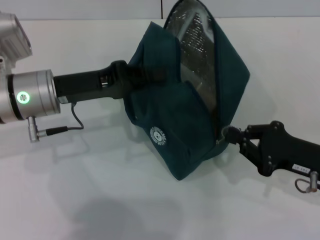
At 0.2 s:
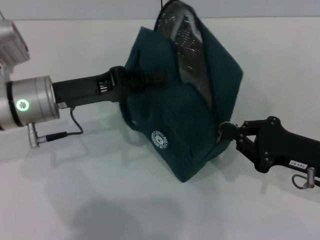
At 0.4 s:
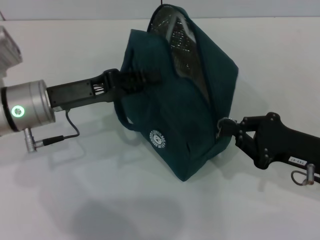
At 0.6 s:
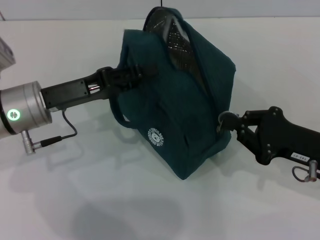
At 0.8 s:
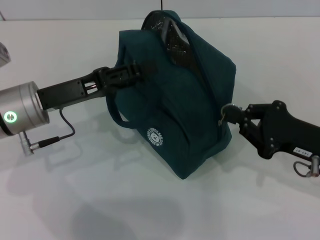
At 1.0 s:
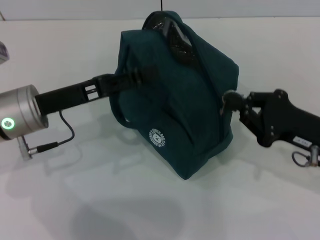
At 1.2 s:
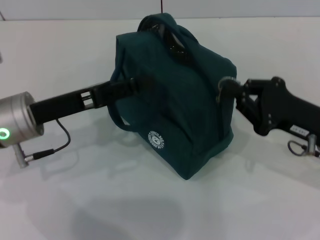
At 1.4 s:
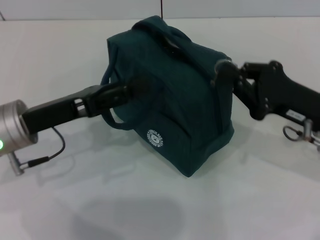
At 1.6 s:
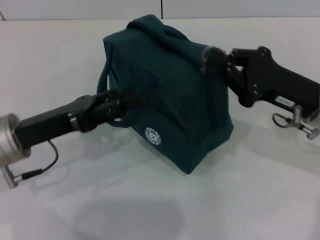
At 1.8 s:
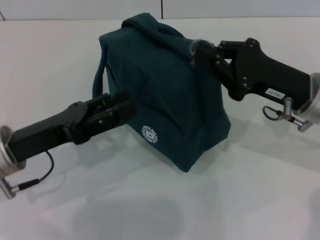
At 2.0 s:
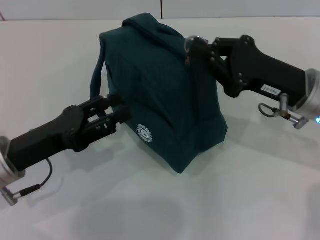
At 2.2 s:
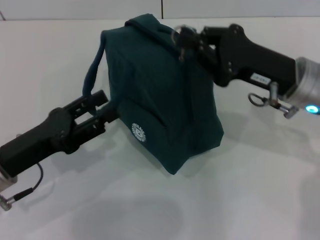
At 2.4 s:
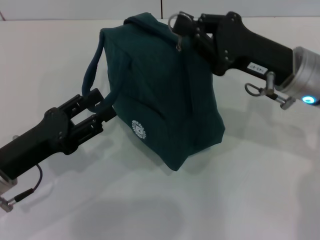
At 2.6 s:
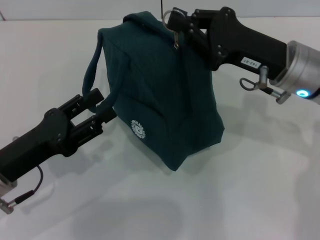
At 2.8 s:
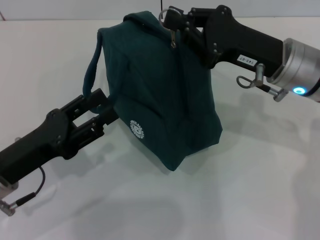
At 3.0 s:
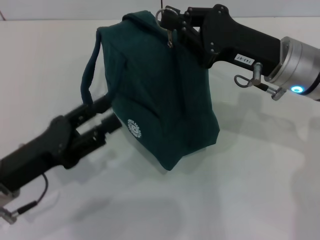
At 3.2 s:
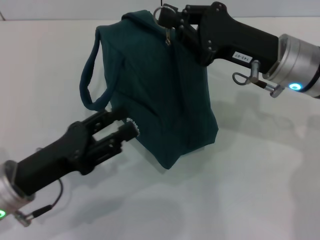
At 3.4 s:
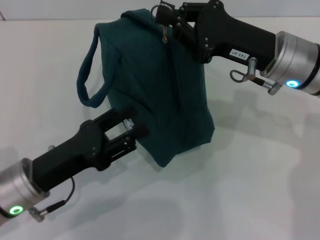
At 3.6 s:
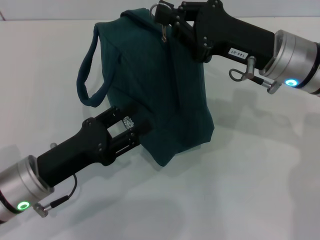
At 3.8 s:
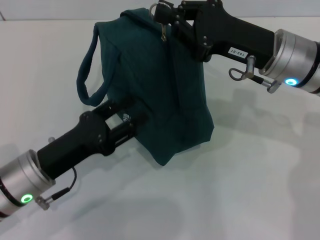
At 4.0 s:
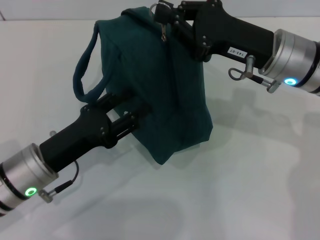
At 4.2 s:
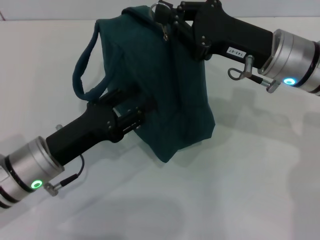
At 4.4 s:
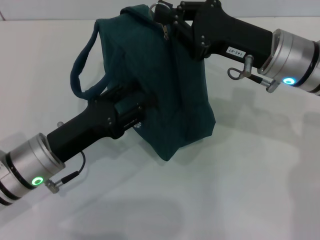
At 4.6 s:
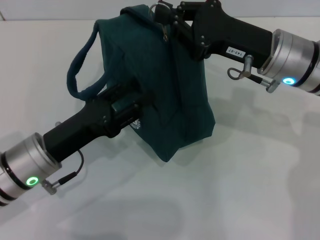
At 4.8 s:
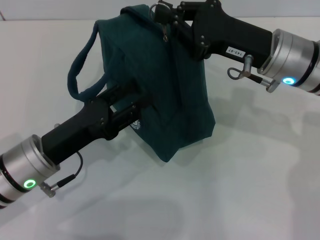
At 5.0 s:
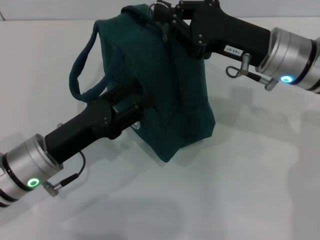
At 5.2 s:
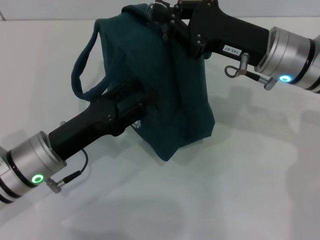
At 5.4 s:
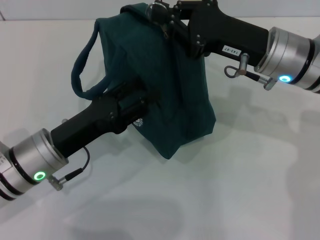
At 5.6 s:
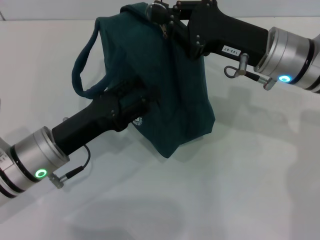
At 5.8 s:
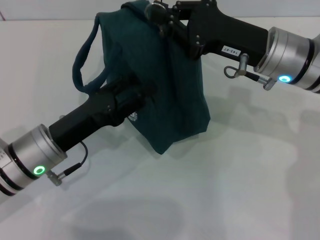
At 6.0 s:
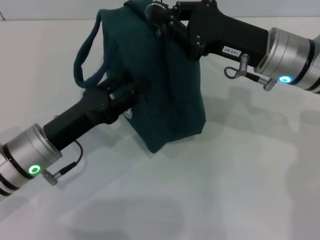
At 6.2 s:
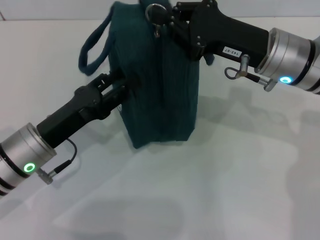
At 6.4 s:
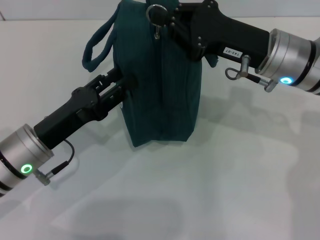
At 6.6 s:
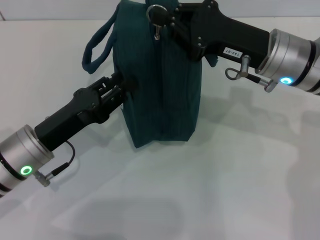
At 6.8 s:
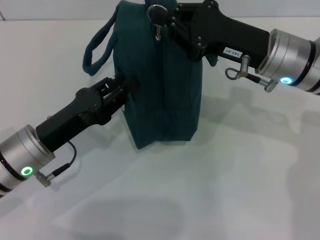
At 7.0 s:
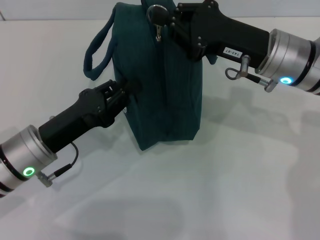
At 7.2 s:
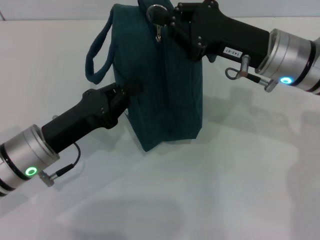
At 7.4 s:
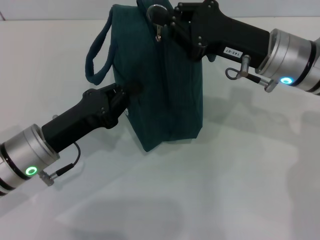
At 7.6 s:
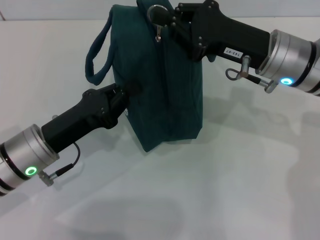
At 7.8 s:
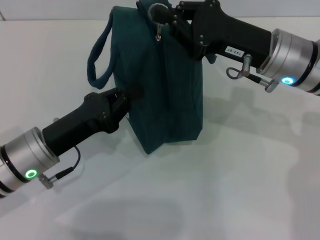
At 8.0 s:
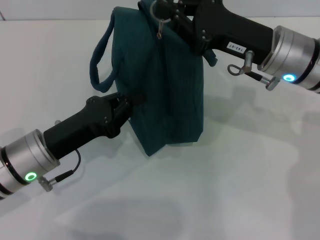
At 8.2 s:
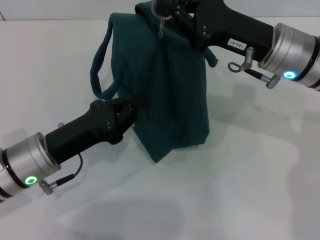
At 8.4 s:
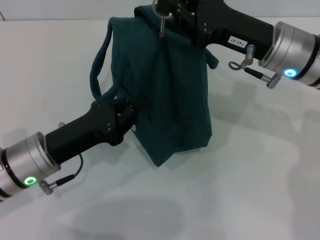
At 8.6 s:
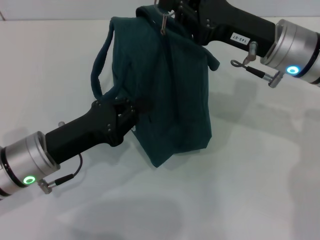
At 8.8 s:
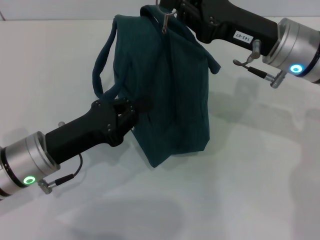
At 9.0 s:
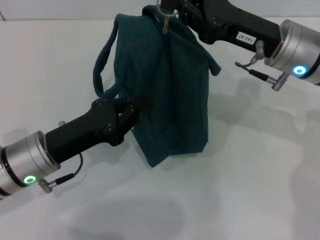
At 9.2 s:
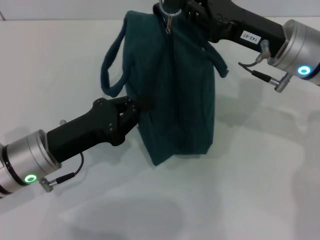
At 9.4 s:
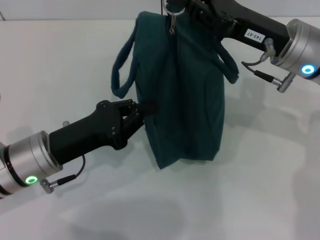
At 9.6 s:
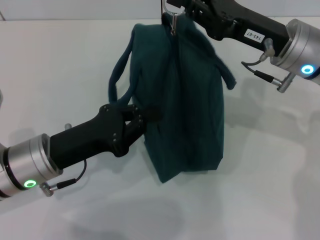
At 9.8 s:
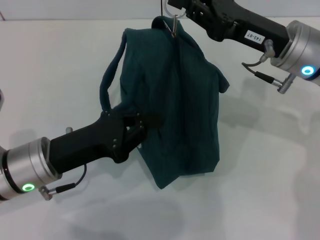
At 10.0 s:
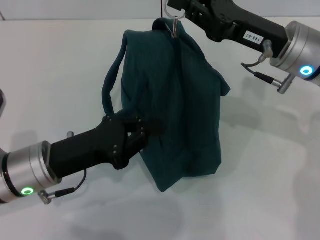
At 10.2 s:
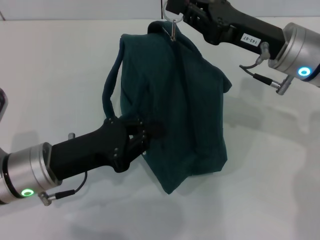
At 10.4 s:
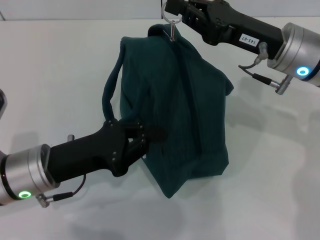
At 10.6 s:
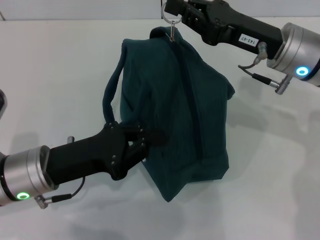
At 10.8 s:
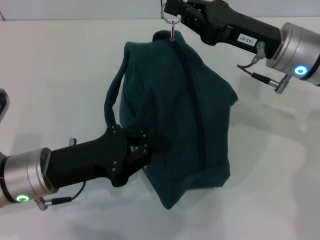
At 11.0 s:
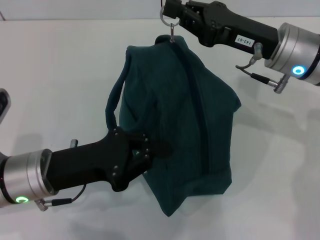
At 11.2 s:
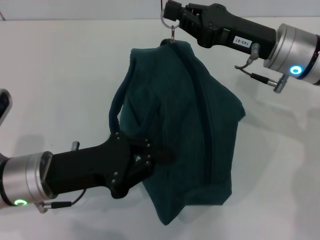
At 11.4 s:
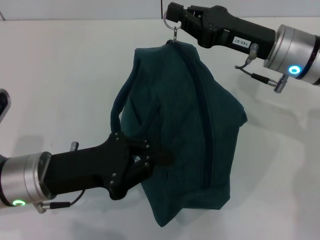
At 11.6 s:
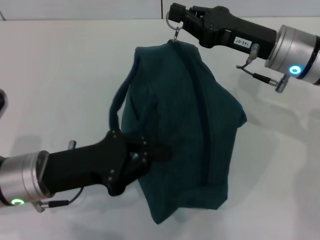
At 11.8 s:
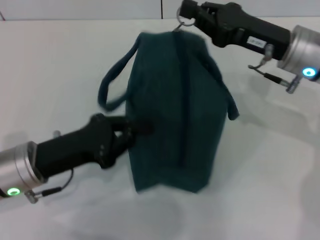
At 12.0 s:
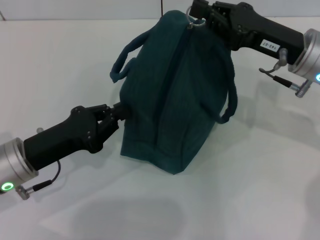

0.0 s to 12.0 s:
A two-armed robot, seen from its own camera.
0.0 to 1.6 s: The right gripper is displaced upward and forward by about 10 cm. The left gripper is displaced backward by roughly 5 cm, and opens its fingers.
1.6 to 3.0 s: The left gripper shifts about 5 cm backward; the right gripper moves to the left, approximately 5 cm.
3.0 to 4.4 s: The left gripper changes place by roughly 5 cm.
4.4 to 6.0 s: The grippers make only small movements.
6.0 to 7.6 s: The left gripper closes up.

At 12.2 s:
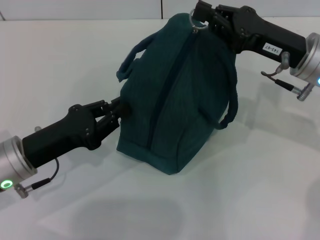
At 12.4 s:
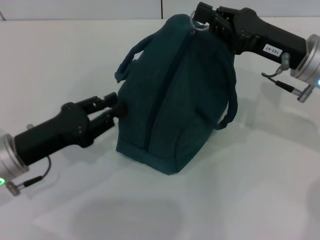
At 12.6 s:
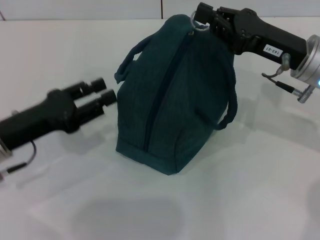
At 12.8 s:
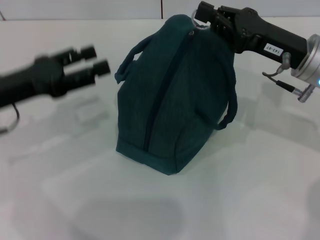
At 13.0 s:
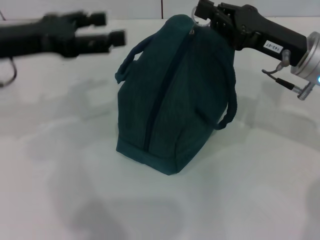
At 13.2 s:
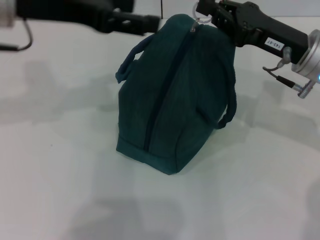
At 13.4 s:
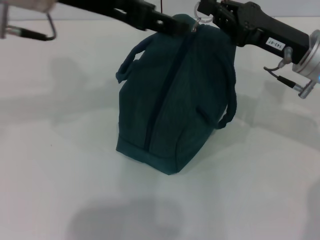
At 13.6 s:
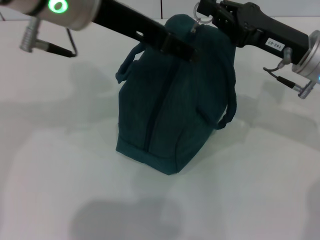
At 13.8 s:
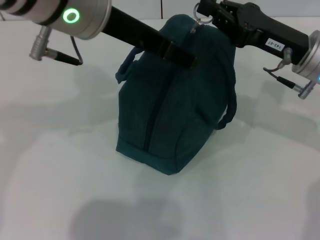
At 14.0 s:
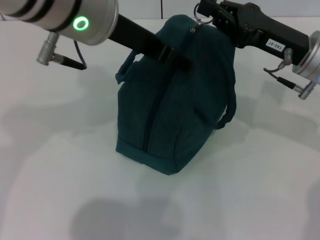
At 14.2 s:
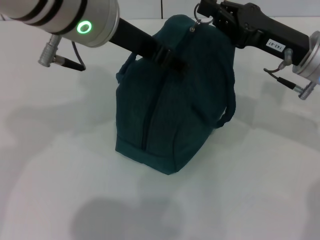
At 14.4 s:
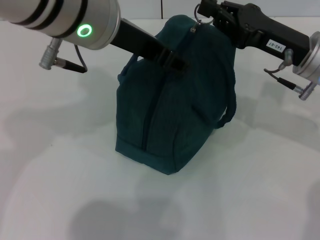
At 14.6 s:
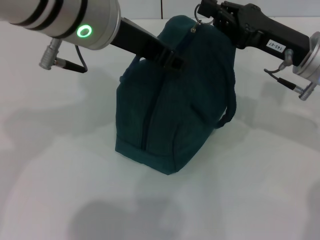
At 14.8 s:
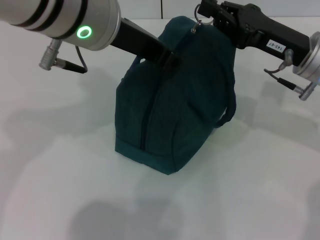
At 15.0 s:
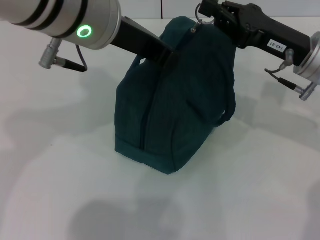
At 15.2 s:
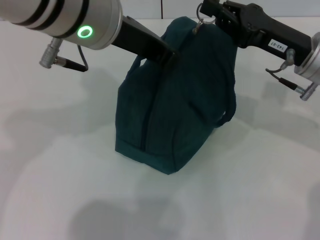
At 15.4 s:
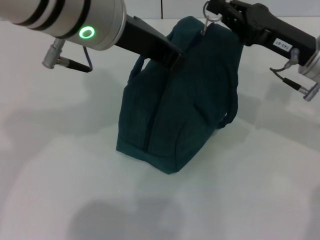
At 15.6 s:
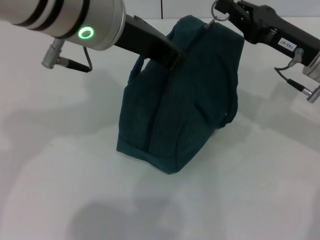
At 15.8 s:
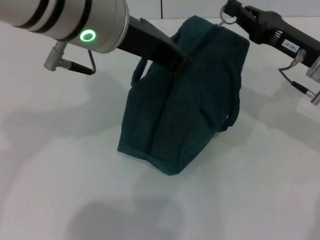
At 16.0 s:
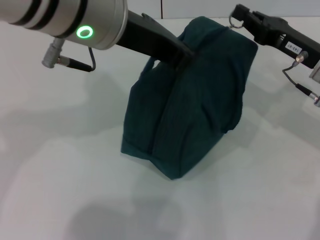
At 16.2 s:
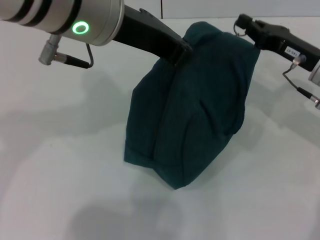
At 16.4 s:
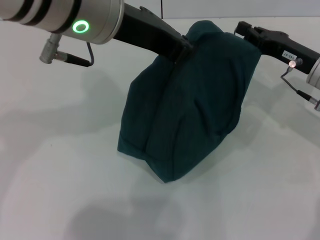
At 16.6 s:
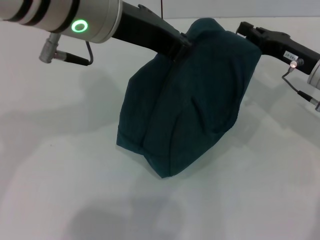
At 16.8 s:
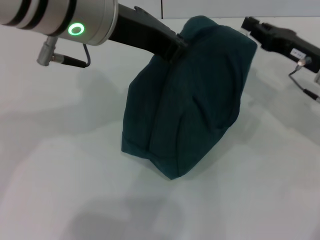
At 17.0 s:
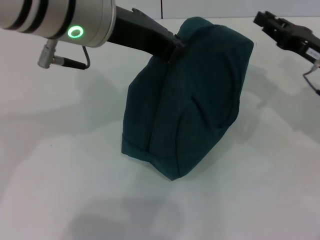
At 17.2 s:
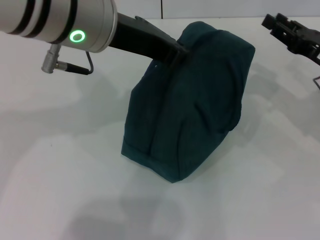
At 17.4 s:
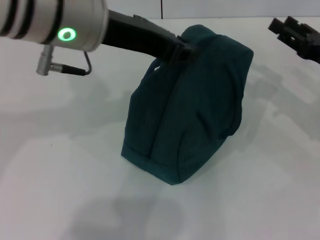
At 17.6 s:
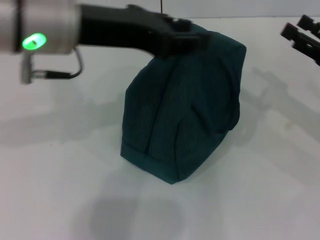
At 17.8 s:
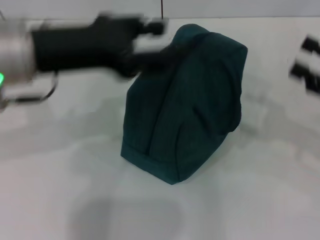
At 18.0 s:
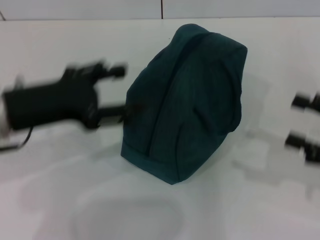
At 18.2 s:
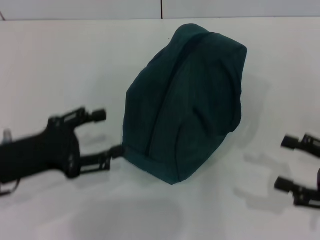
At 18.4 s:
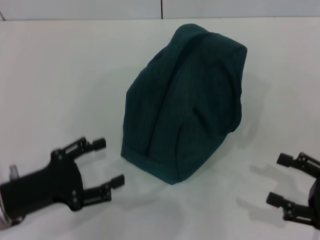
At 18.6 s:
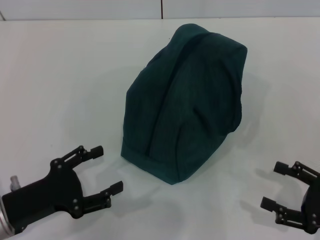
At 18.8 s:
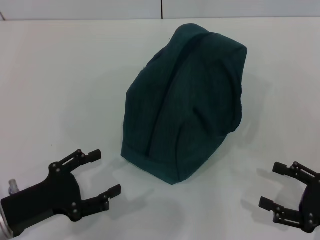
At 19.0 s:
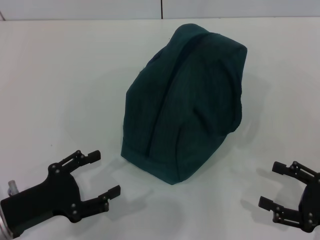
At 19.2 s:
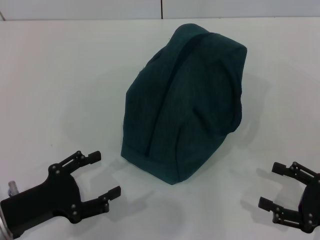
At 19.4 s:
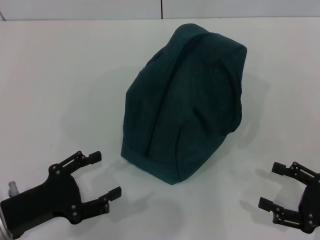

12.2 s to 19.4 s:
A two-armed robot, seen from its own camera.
Step, 12.2 to 16.8 s: Zip up the lunch bag with your right hand.
Step, 17.0 to 17.6 s: Hold the lunch bag with your left hand.
12.2 to 13.6 s: The left gripper shifts some 25 cm upward and to the right, and opens.
13.6 to 15.0 s: The left gripper closes its fingers.
15.0 to 16.6 s: The right gripper shifts by some 5 cm.
16.6 to 18.0 s: The right gripper travels backward and to the right by approximately 15 cm, and opens; the left gripper heads to the left, downward and backward, covering some 20 cm, and opens its fingers.
18.0 to 19.4 s: The left gripper heads downward and backward, covering roughly 15 cm; the right gripper is displaced downward and backward by about 10 cm.
